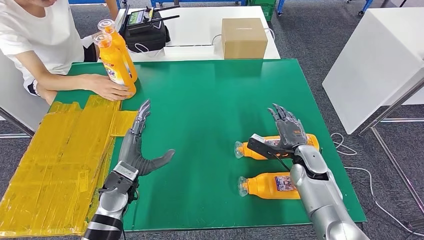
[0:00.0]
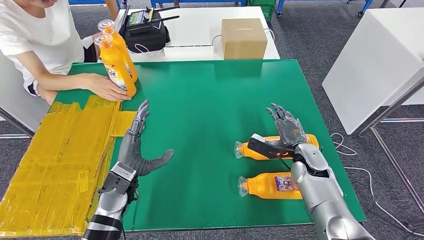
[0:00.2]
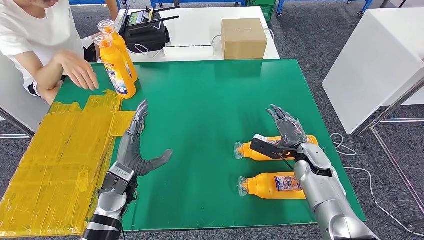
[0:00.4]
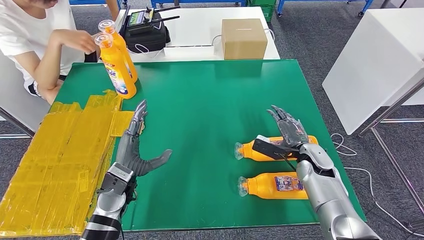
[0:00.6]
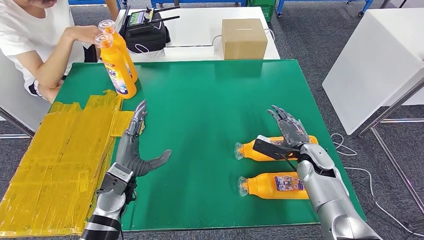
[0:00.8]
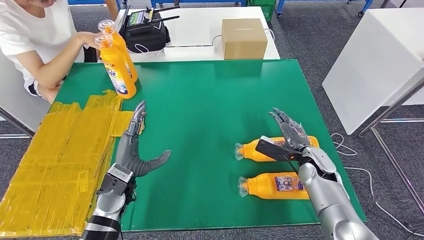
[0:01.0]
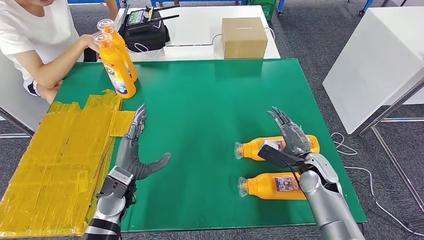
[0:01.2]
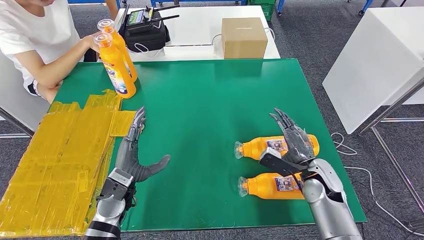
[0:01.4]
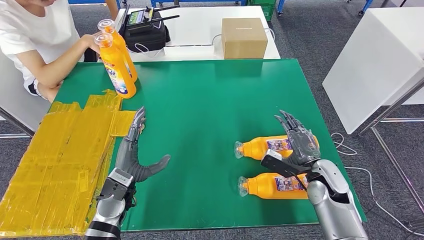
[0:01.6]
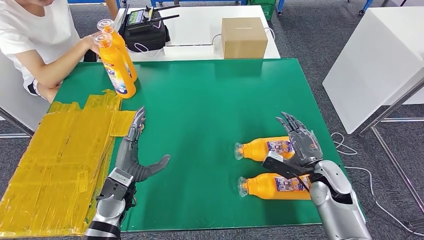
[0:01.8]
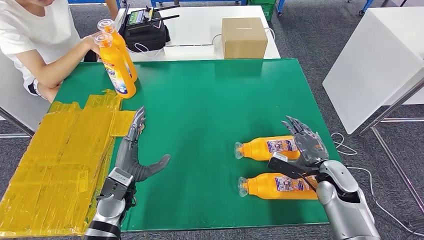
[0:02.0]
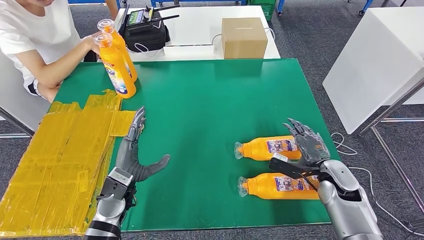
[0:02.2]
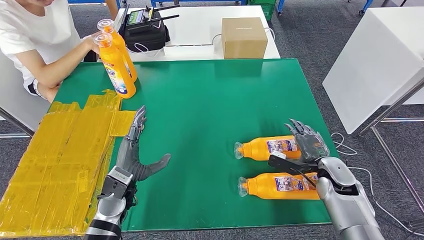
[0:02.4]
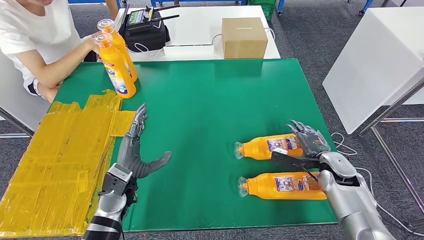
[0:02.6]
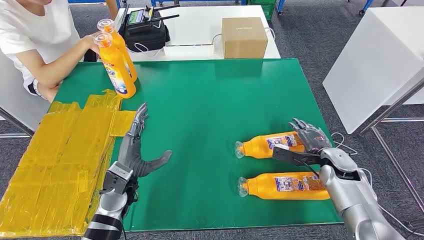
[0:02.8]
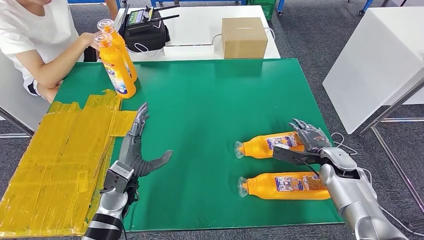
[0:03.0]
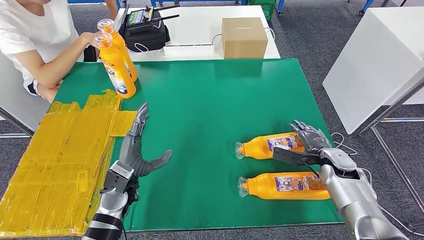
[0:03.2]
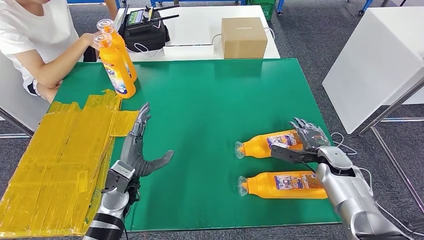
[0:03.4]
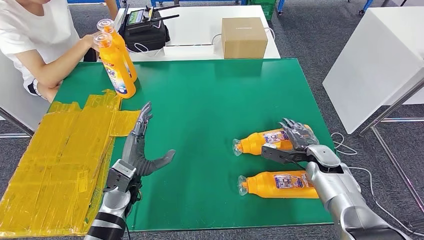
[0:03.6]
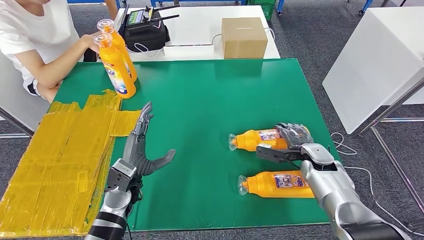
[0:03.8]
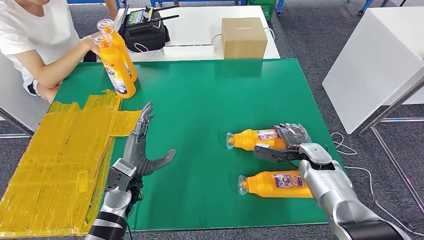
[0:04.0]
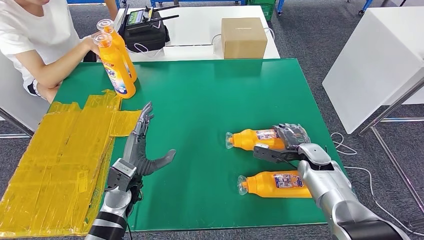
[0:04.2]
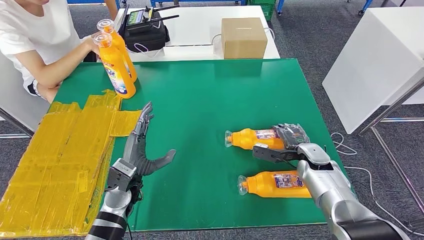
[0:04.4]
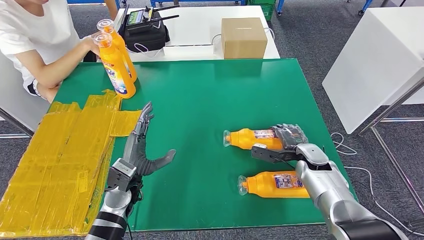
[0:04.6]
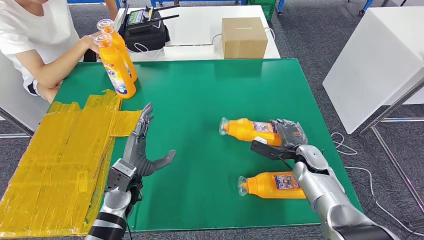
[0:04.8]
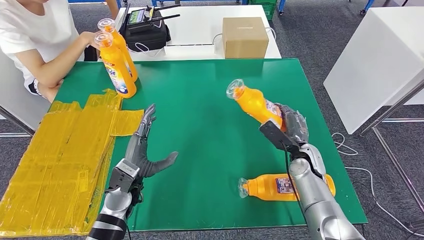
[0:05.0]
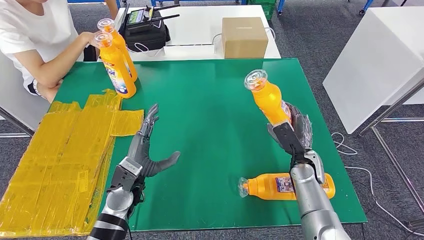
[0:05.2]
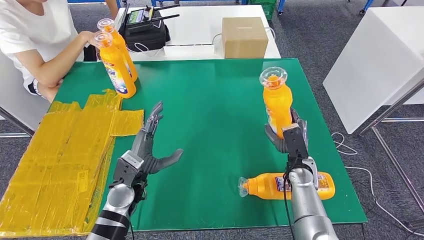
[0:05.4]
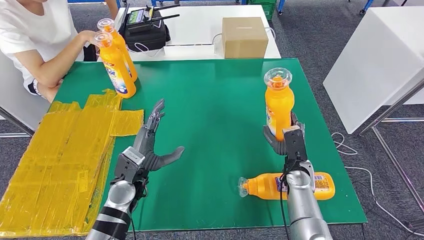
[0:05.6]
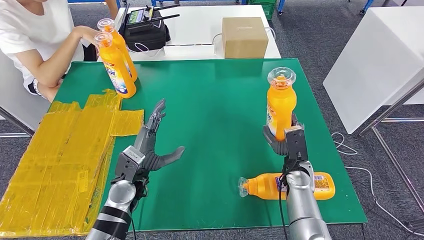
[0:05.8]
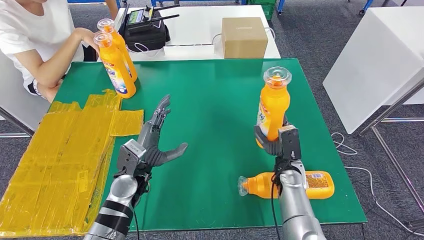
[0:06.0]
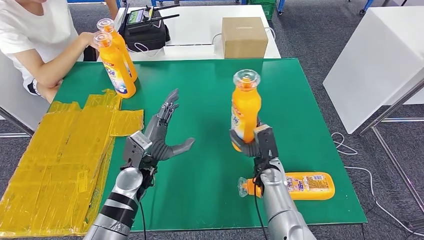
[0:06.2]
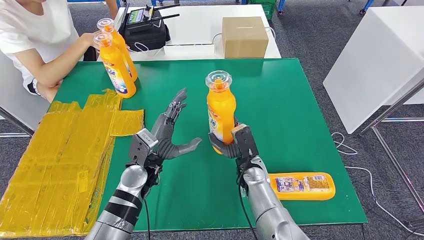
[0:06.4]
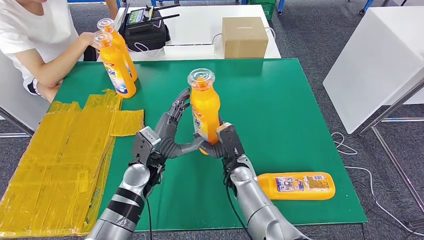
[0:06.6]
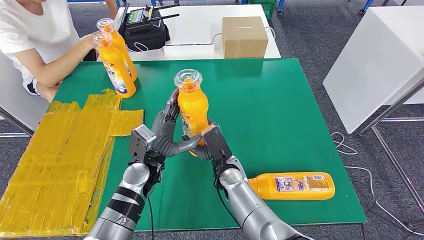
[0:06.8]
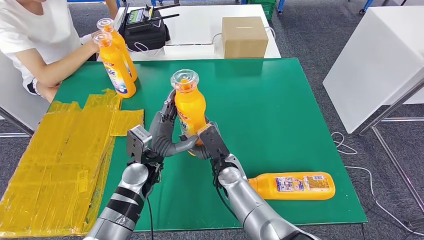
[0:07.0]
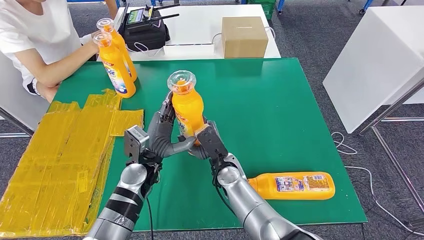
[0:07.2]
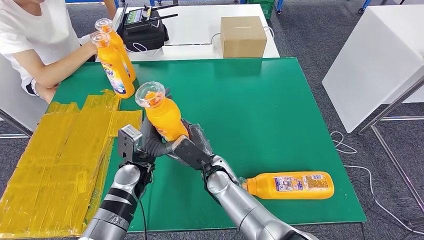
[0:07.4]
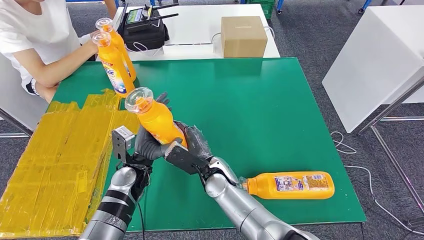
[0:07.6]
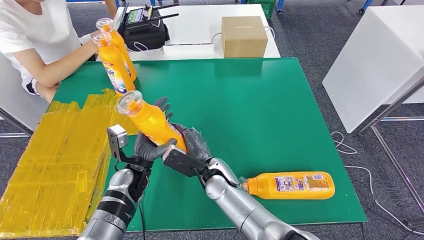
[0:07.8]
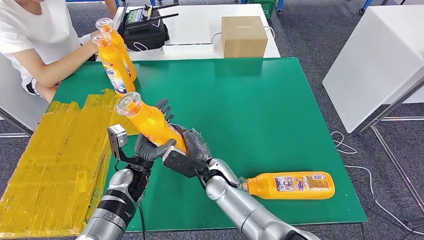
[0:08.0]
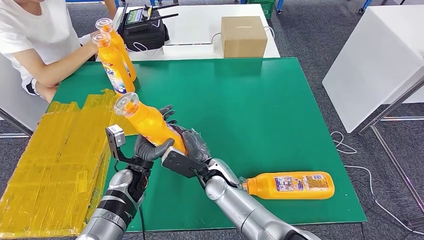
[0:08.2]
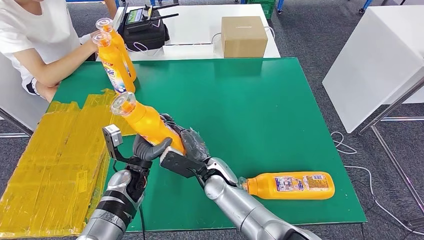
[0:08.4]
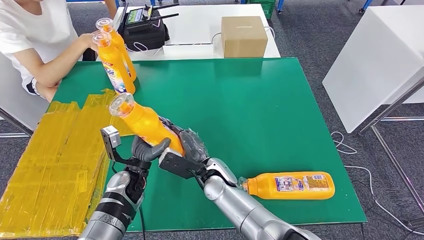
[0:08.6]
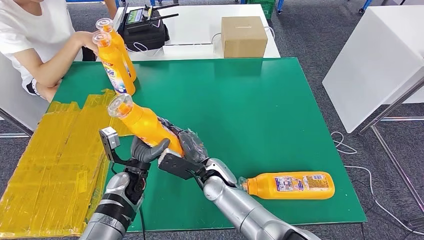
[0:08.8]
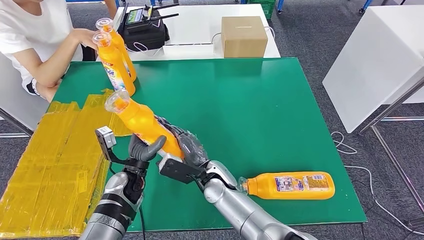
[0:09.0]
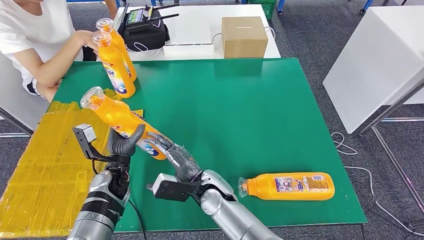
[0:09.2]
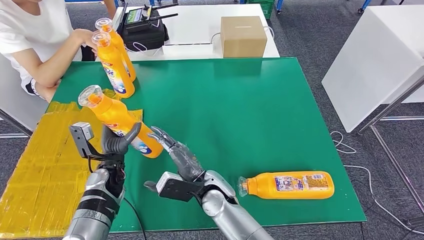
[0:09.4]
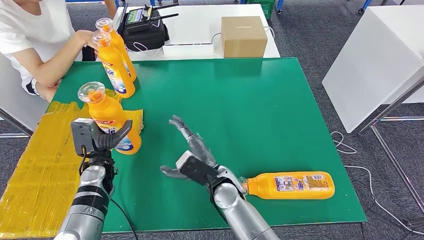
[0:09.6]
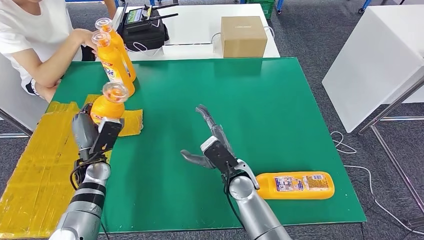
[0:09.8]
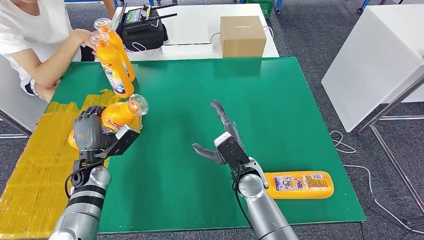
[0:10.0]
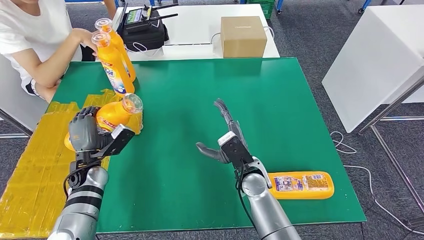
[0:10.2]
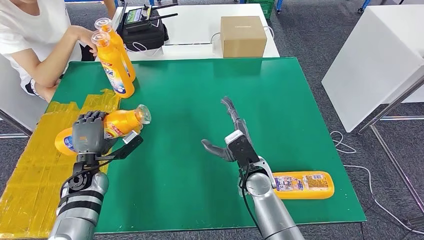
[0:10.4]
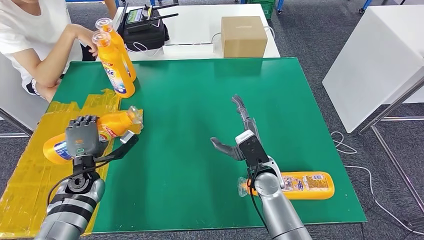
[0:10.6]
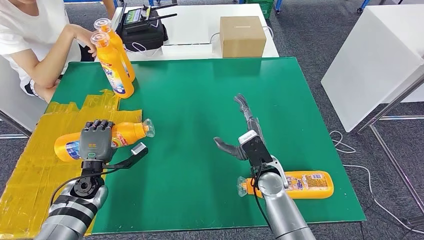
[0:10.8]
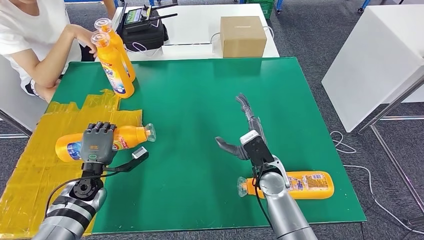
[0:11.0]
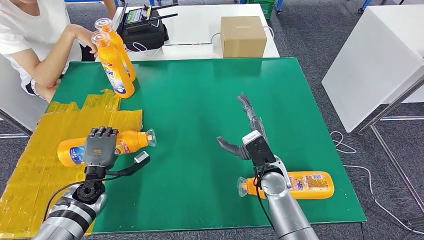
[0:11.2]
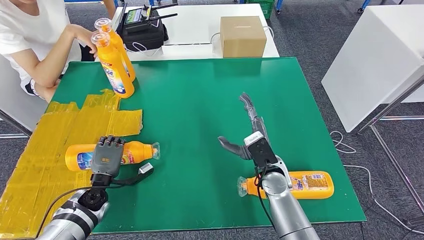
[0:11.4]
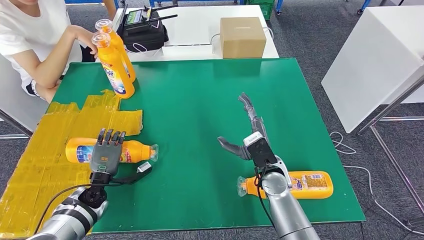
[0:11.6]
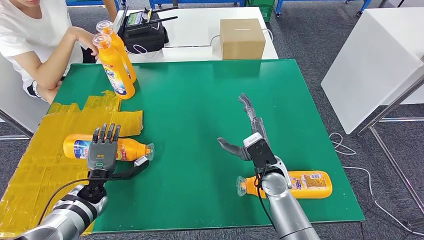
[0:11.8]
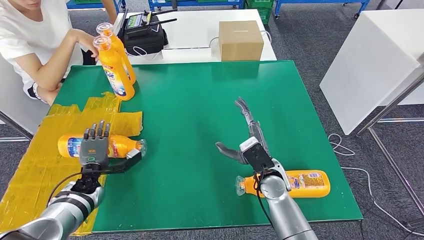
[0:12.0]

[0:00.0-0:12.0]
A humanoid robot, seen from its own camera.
Step, 0:00.0 to 0:05.8: Pick up the fast-moving consumer goods bottle from the table.
Step, 0:06.0 to 0:10.6: Flip the fast-moving consumer goods bottle to the front side.
0:00.0 to 0:01.6: The right hand shifts about 5 cm backward.
0:01.6 to 0:03.0: The right hand is displaced to the right and forward by approximately 10 cm.
0:03.0 to 0:04.4: The right hand moves to the left, some 5 cm.
0:04.4 to 0:06.0: The right hand shifts roughly 10 cm to the left.
0:06.0 to 0:07.6: The right hand is displaced to the left by some 20 cm.
0:09.0 to 0:10.4: The left hand heads to the left, covering some 10 cm, while the right hand travels to the right by approximately 10 cm.

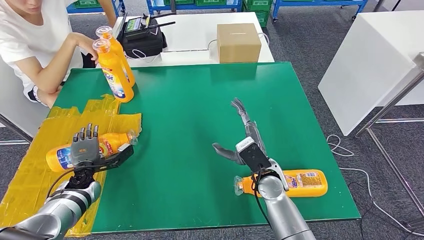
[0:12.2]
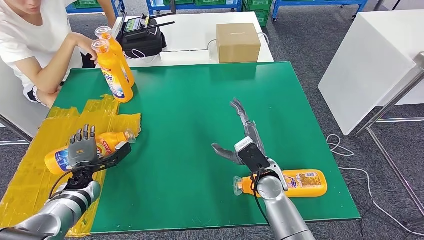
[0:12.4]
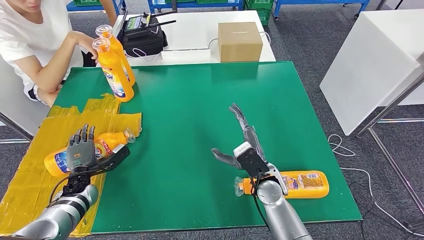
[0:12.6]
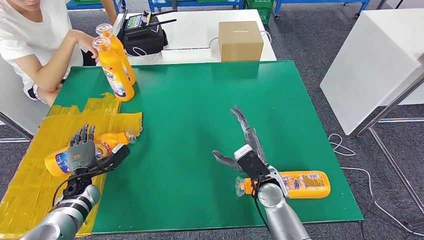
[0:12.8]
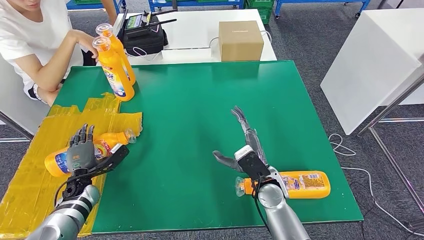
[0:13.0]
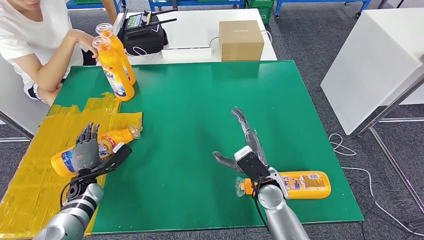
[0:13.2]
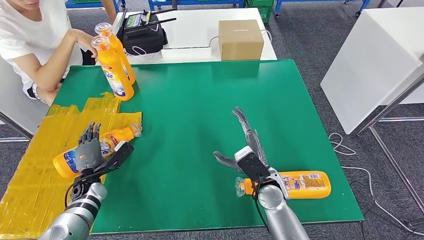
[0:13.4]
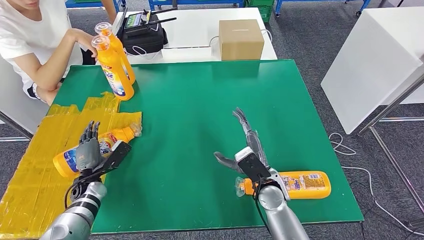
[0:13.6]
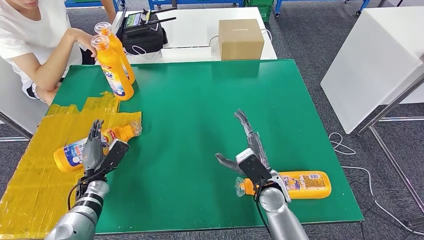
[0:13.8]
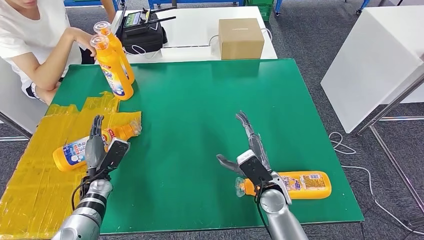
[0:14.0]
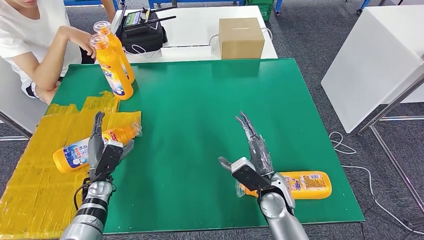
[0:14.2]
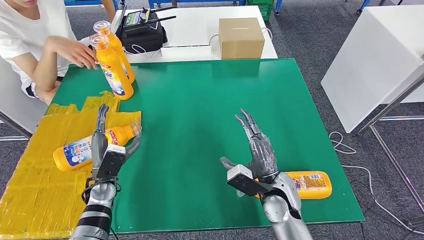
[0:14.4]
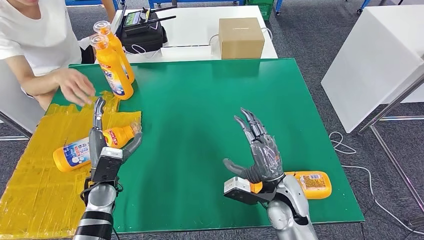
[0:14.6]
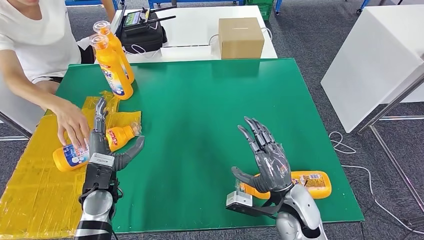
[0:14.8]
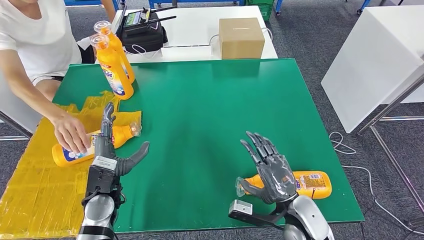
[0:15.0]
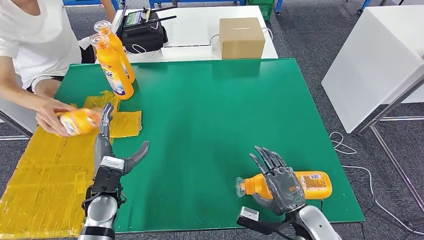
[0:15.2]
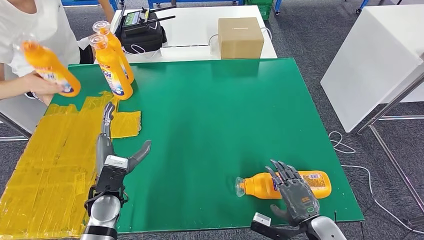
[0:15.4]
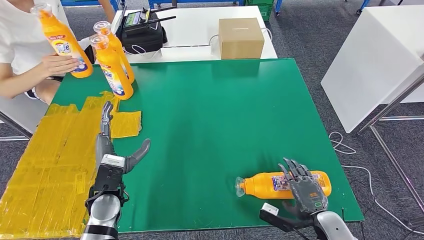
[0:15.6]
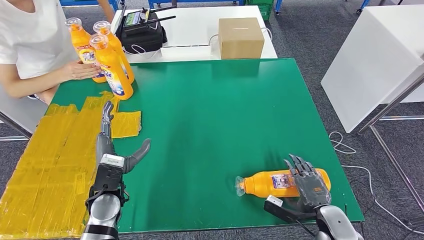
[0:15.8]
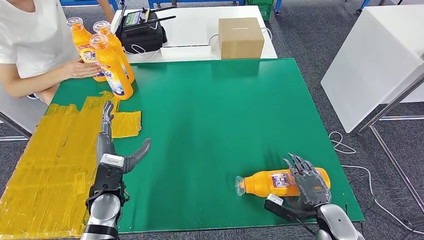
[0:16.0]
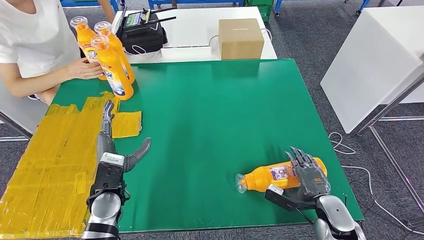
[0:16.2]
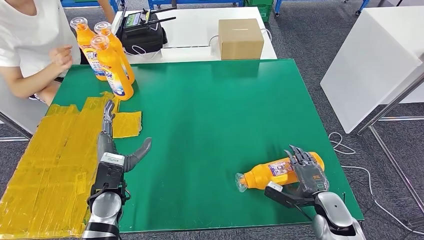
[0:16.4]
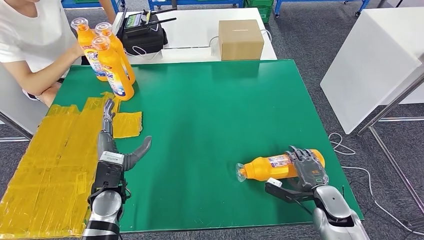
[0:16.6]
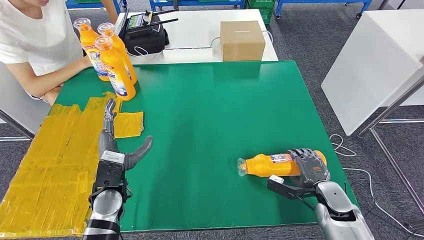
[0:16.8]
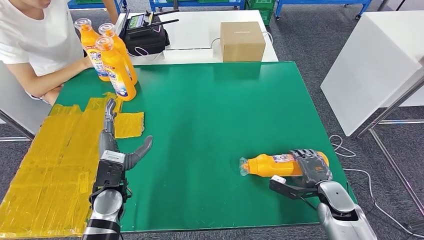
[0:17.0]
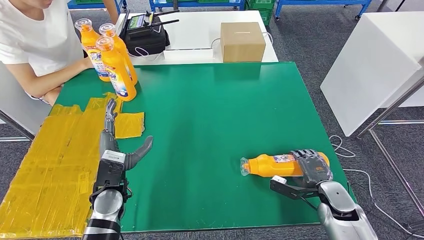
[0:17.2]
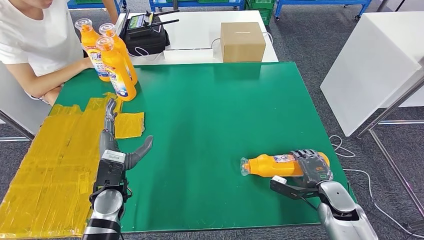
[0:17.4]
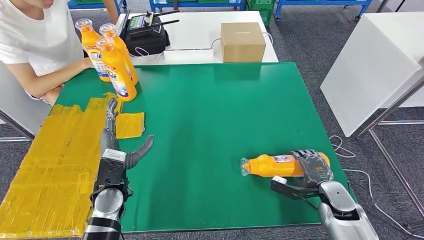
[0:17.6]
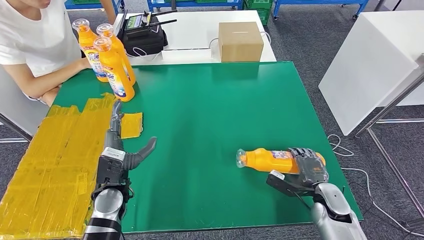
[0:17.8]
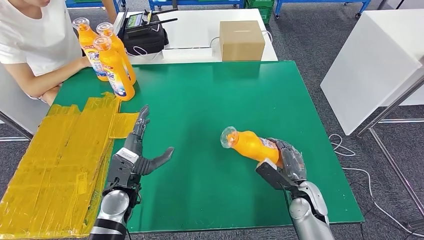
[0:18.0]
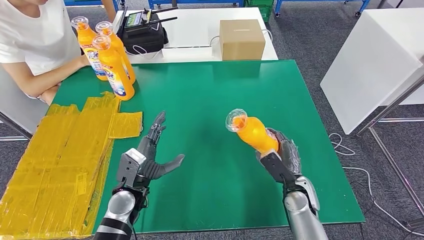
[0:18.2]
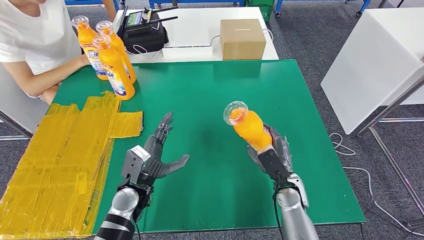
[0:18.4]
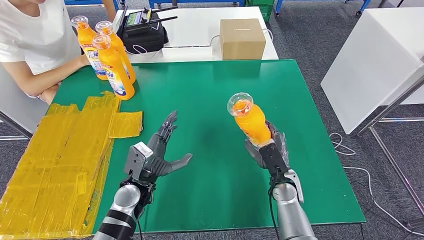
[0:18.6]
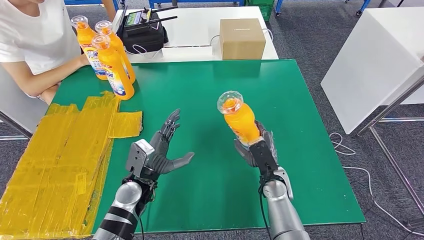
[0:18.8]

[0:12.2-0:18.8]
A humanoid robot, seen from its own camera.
0:13.8 to 0:15.4: The right hand moves to the right and backward, some 15 cm. The left hand travels to the right, upward and backward by about 15 cm.
